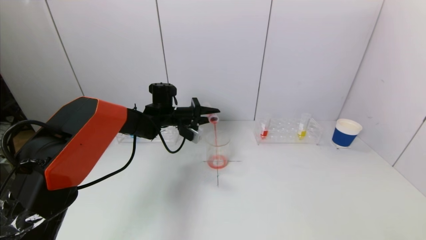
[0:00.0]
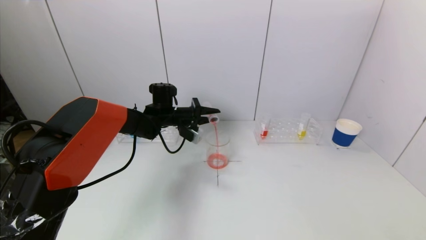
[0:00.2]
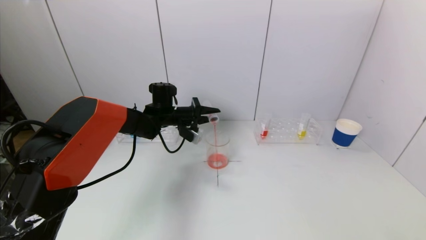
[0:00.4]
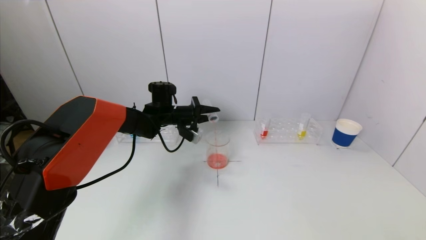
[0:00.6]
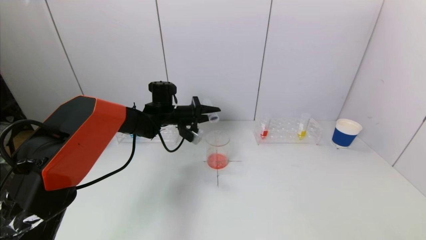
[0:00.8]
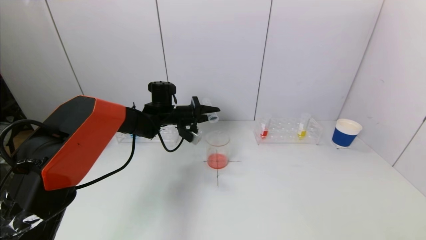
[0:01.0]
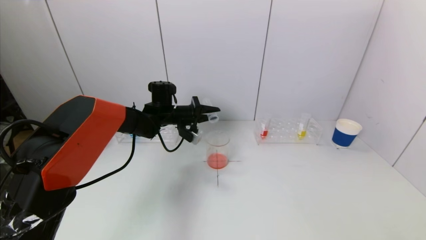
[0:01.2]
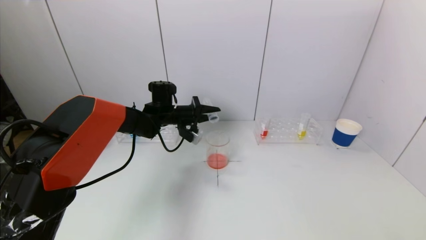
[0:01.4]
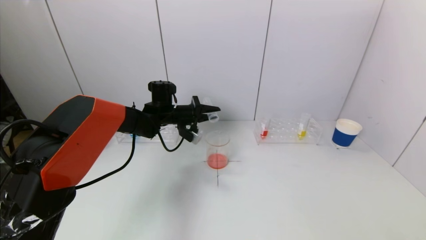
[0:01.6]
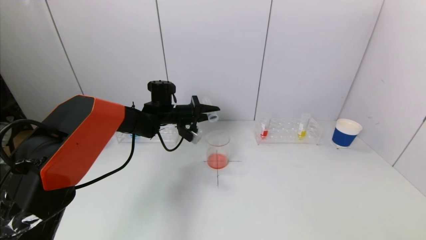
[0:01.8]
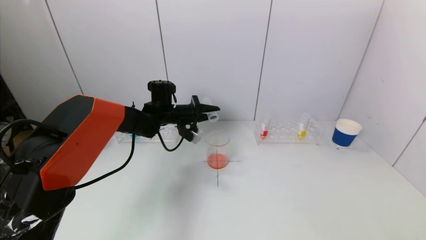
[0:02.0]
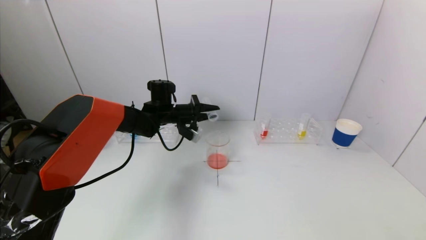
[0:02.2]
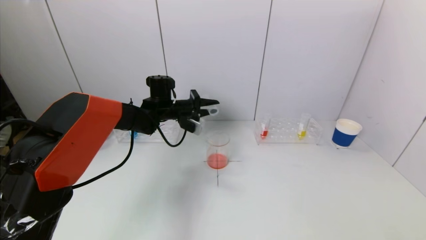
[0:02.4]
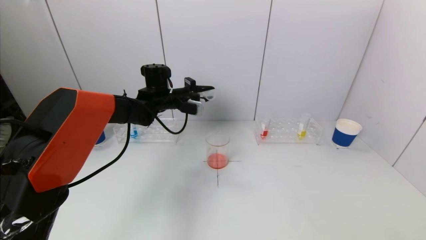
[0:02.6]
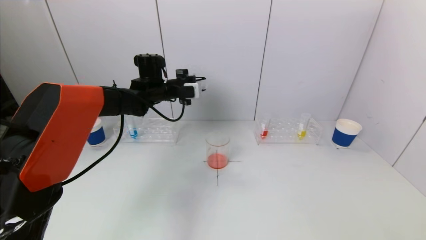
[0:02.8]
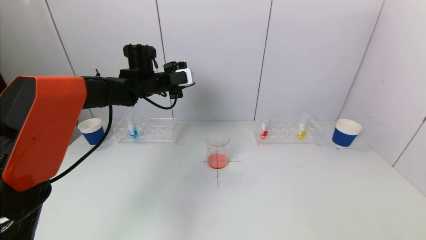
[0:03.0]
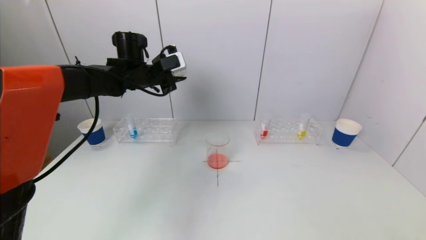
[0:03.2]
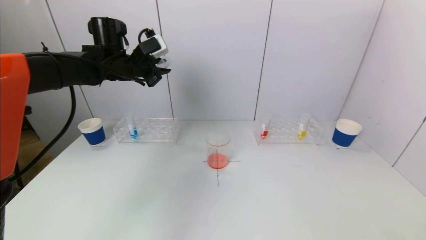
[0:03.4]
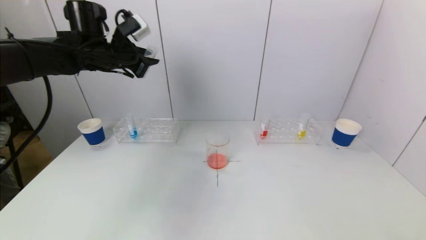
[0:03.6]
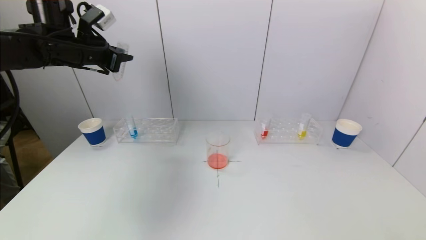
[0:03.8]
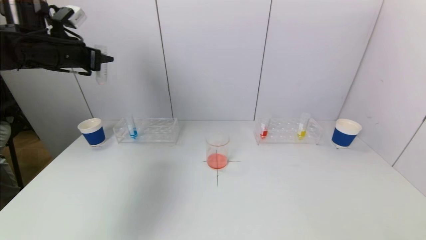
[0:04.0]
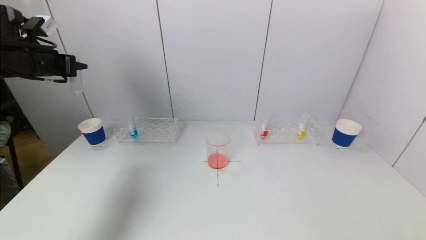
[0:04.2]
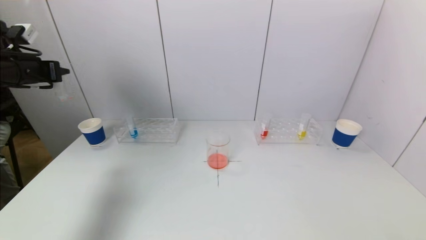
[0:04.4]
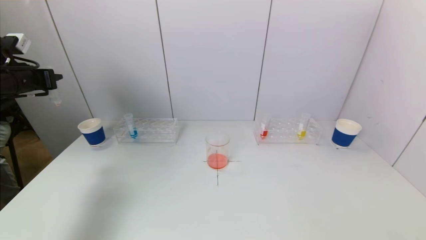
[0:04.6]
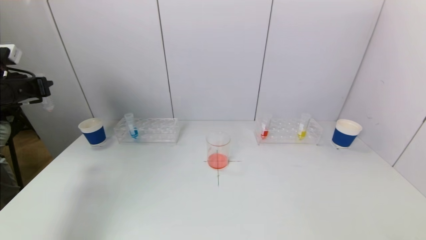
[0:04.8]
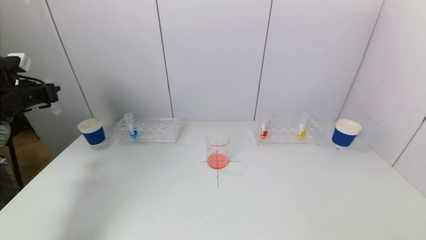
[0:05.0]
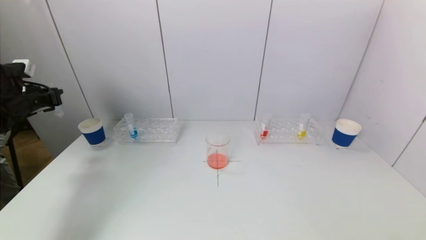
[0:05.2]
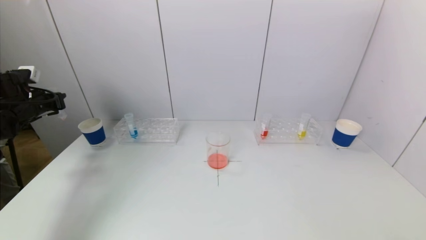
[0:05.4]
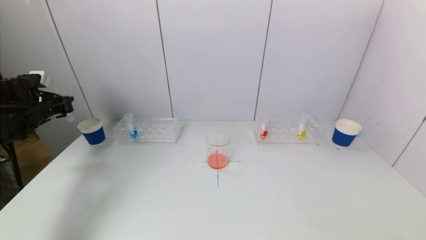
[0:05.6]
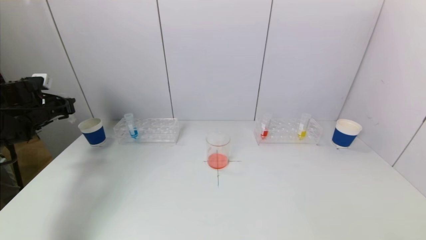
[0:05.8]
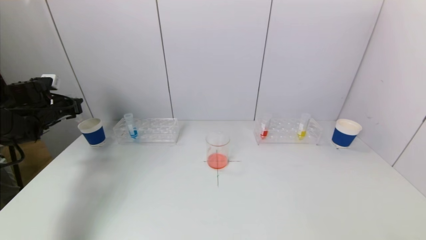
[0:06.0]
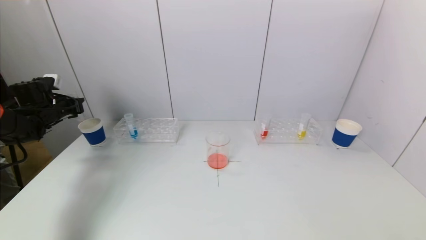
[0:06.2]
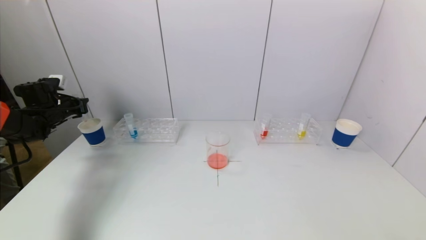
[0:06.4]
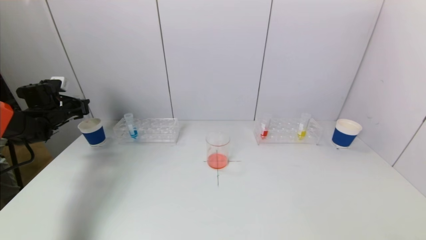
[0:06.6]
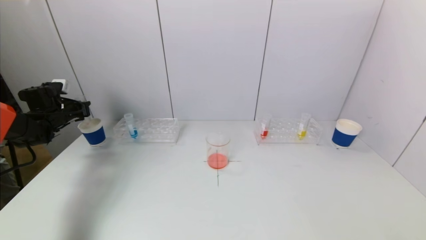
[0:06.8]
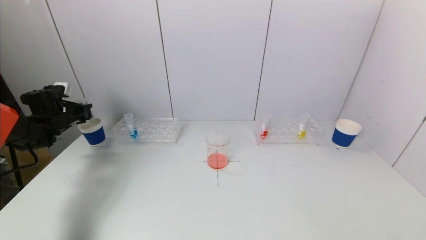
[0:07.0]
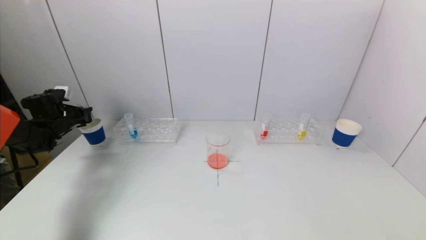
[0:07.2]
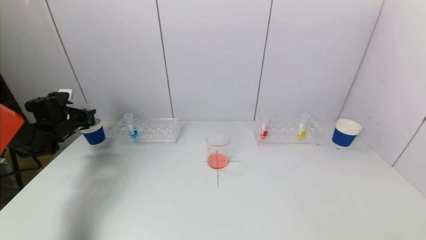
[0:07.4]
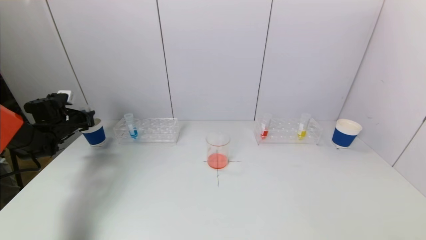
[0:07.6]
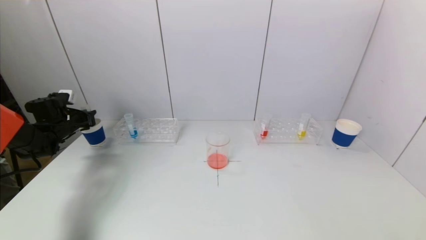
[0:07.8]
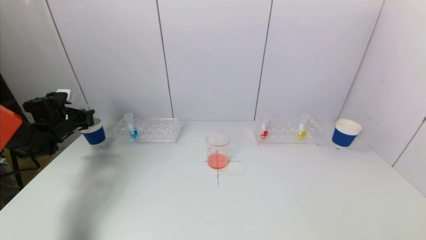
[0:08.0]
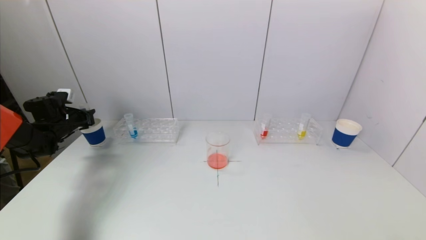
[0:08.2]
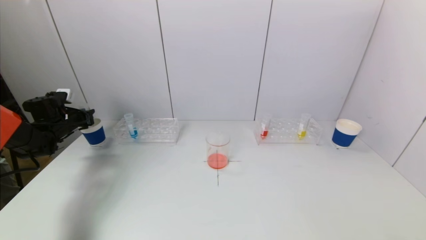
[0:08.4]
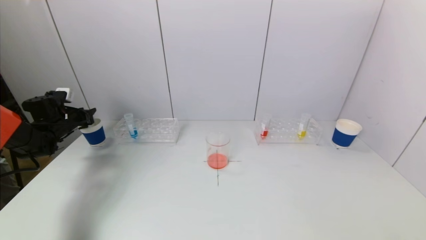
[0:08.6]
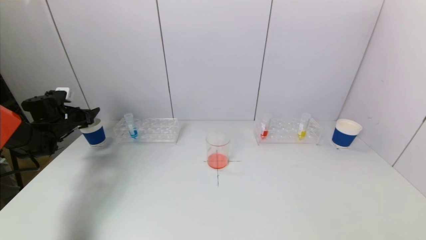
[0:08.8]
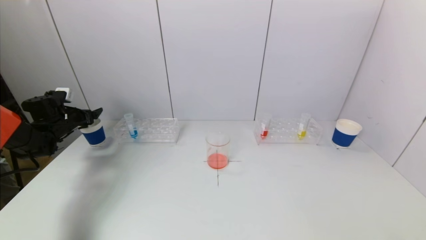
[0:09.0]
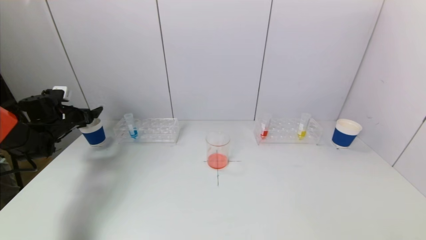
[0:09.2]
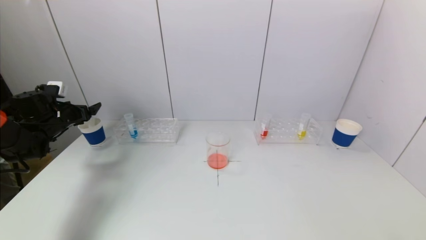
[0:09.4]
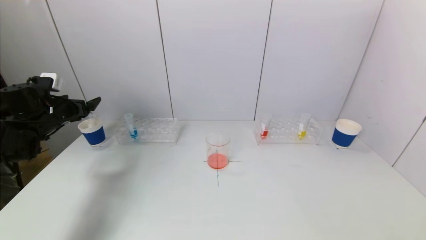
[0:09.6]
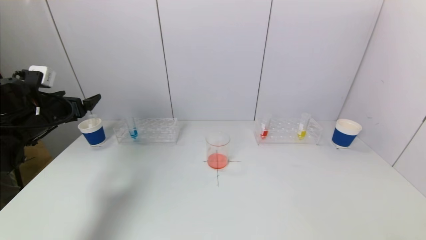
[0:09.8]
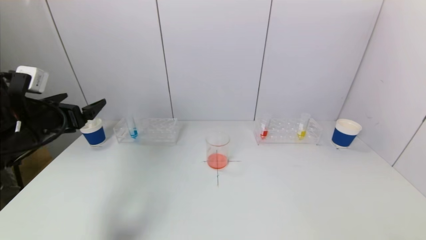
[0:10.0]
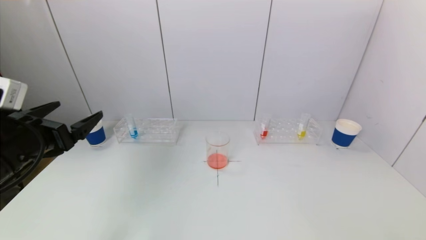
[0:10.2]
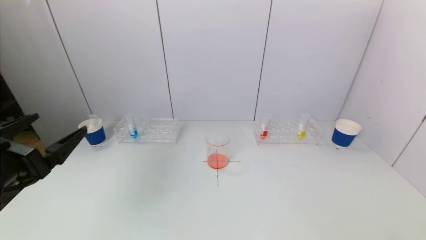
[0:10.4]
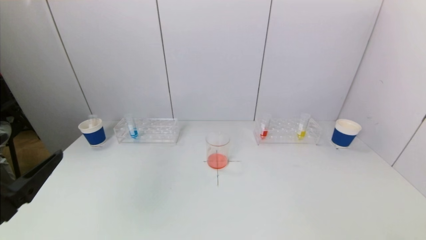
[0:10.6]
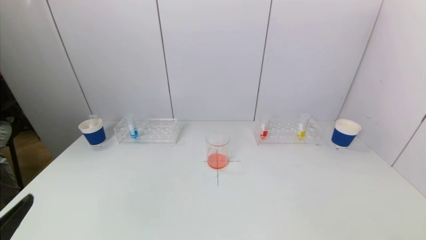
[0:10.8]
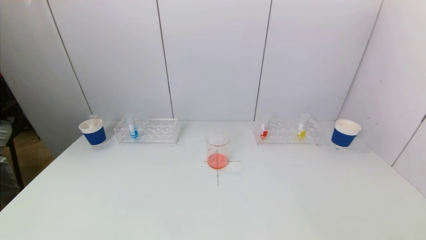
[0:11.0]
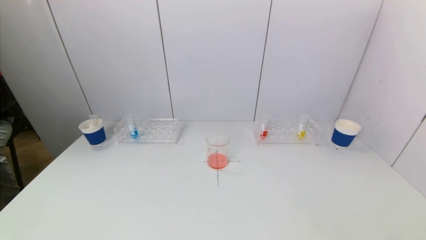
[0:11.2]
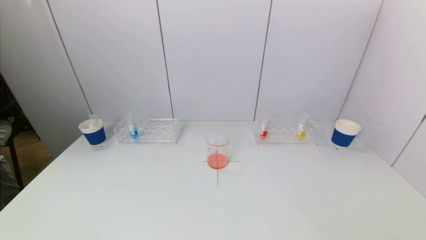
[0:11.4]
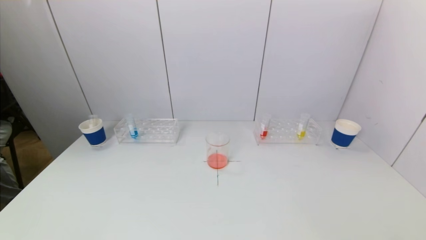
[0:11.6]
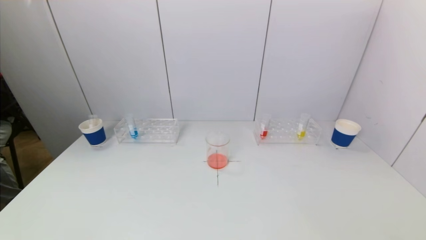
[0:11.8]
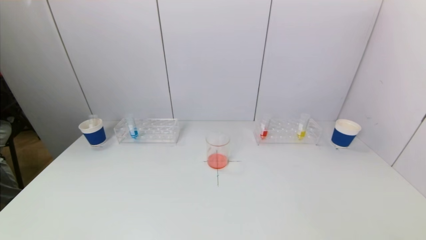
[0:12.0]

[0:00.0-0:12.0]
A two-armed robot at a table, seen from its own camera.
Task of the whole recording: pick up a test tube with pigment on left test tube rack and a test tube with pigment on right test tube rack by grippers and pour them into the beaker.
Step, 0:01.8 to 0:09.2: Place the test tube into the paper cup with the left gripper.
0:00.0 to 0:01.6: The grippers make only small movements.
0:01.6 to 0:03.0: The left gripper shifts approximately 10 cm upward.
0:03.0 to 0:04.4: The left gripper shifts about 25 cm to the left and backward.
0:04.4 to 0:06.0: The left gripper shifts some 15 cm downward and forward.
0:06.0 to 0:07.6: The left gripper shifts approximately 5 cm downward.
0:07.6 to 0:09.0: The left gripper opens.
0:09.0 to 0:10.4: The left gripper is displaced backward and to the right by some 35 cm.
0:10.4 to 0:12.0: The left gripper goes roughly 20 cm backward and downward.

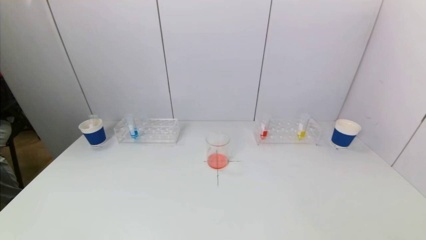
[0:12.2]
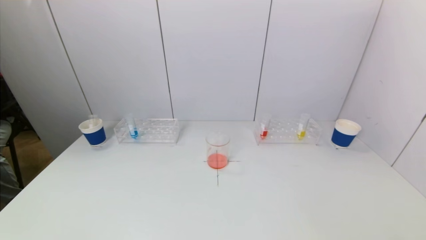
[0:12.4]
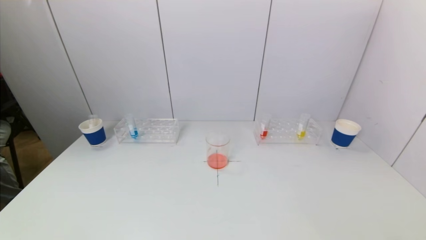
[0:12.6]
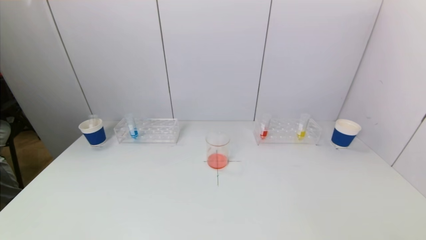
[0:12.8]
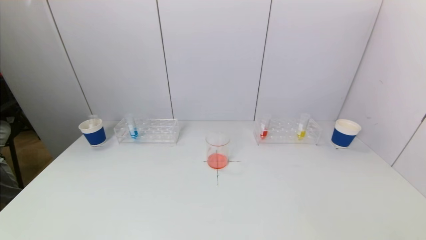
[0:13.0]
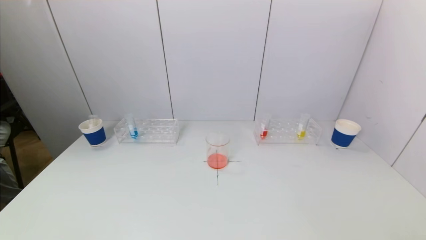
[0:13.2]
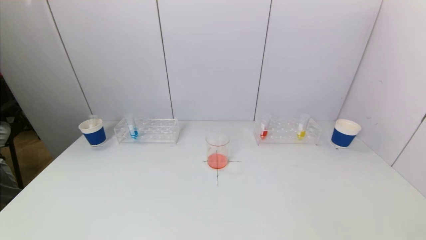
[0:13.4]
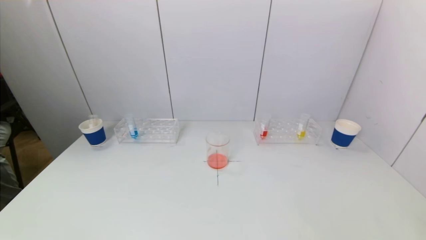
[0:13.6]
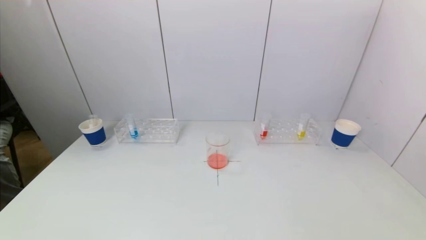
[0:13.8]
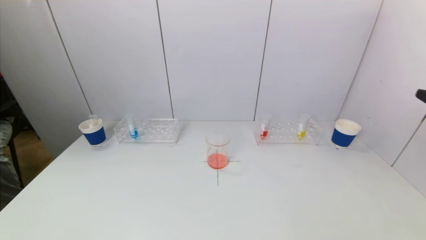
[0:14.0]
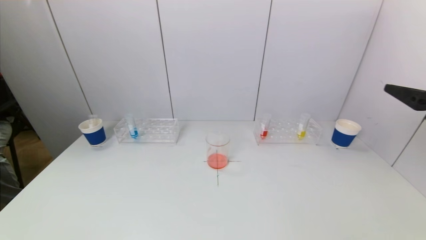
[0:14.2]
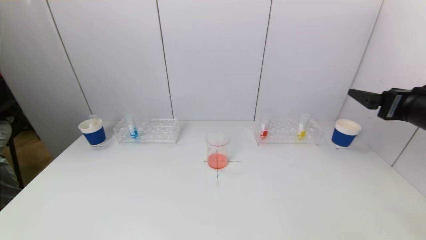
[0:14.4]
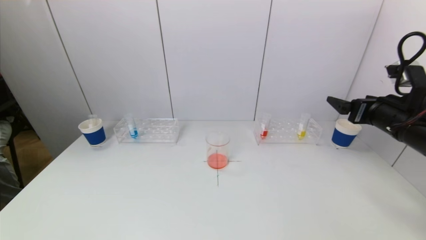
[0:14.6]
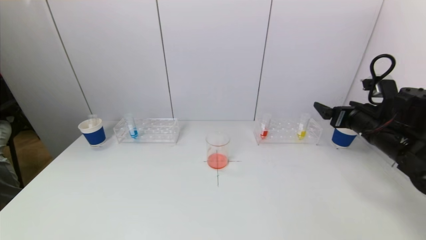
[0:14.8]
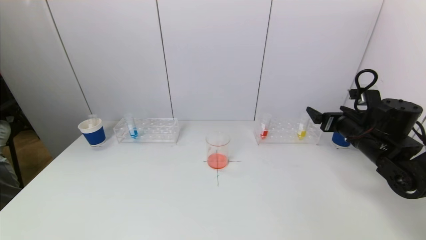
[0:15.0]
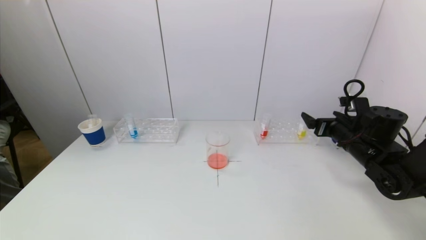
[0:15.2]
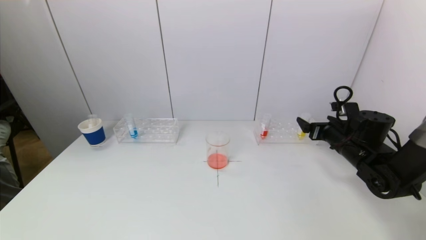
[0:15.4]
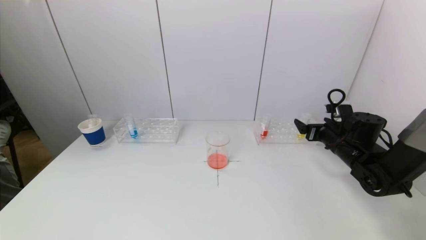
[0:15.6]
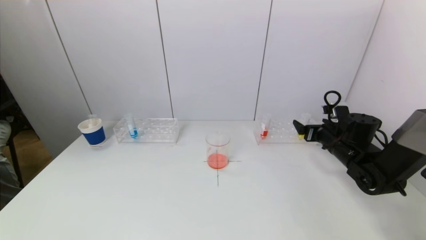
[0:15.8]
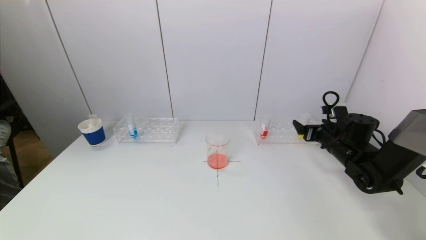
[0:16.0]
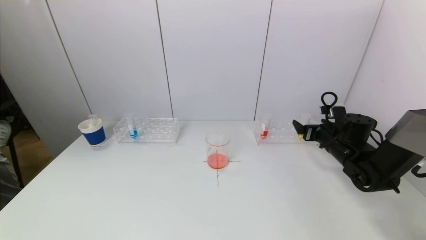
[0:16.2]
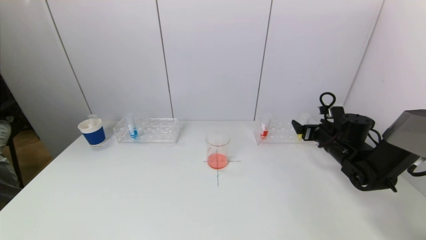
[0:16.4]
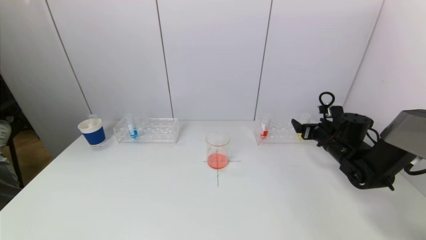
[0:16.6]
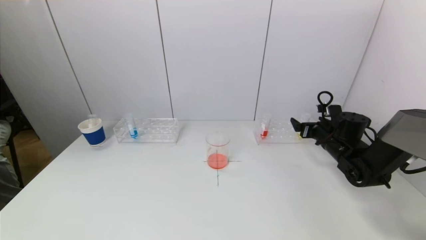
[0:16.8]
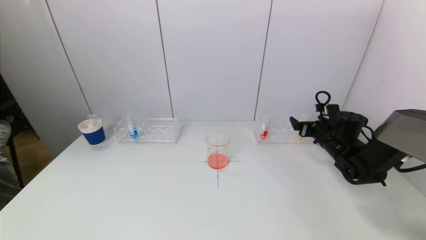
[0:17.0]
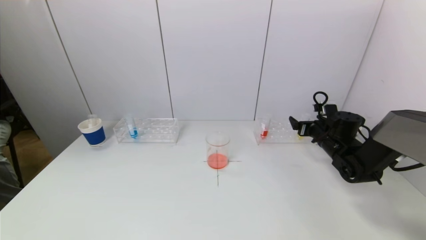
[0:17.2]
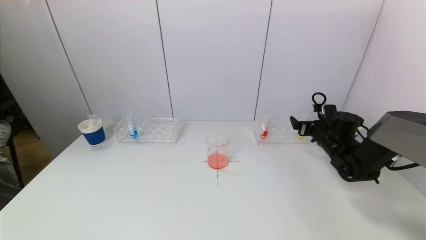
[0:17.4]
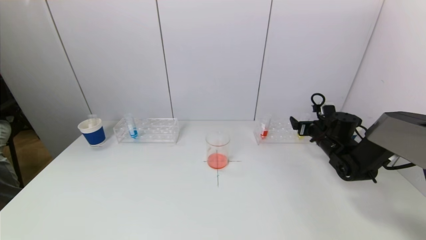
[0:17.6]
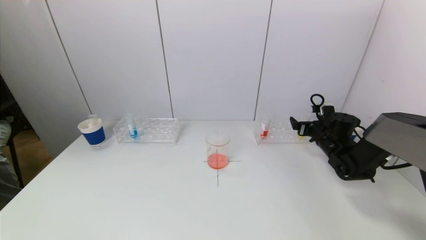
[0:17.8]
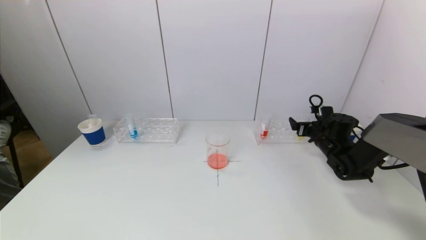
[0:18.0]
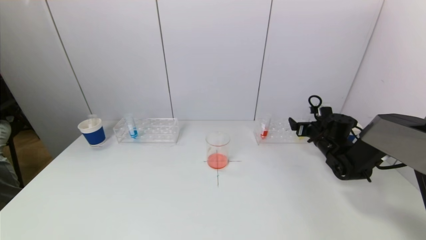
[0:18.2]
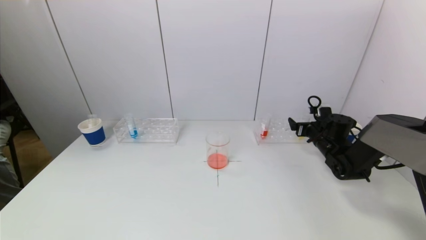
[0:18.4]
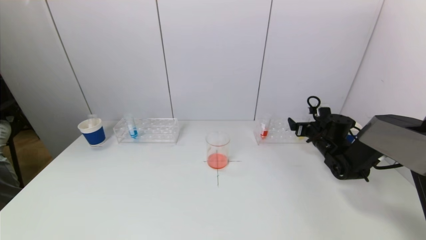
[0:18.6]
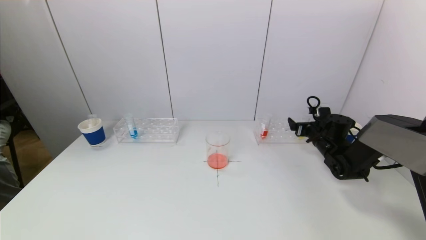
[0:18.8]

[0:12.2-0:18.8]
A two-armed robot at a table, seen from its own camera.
Task of the whole recording: pick up a test tube with pigment on left test tube rack and a test tube with pigment on right test tube rack by grippers and pour them into the beaker.
0:13.8 to 0:15.4: The right gripper is displaced forward and downward by roughly 35 cm.
0:15.4 to 0:17.2: The right gripper is displaced forward by approximately 5 cm.
0:17.2 to 0:18.8: The grippers make only small movements.
